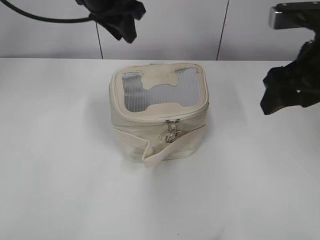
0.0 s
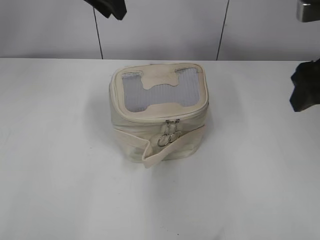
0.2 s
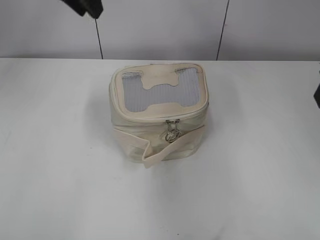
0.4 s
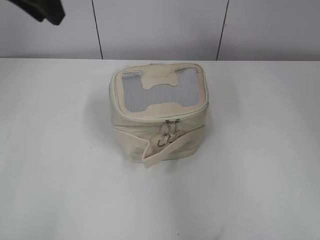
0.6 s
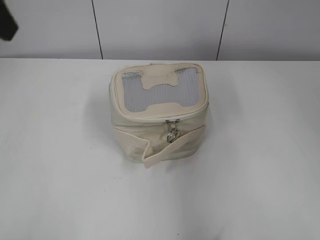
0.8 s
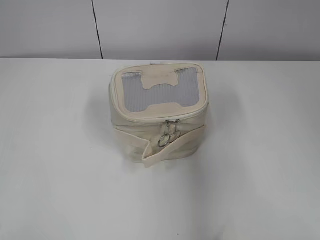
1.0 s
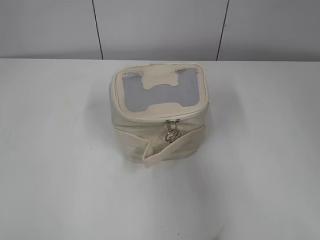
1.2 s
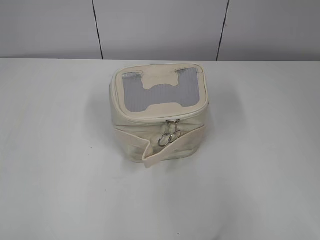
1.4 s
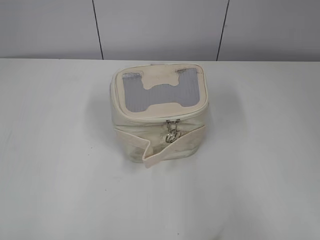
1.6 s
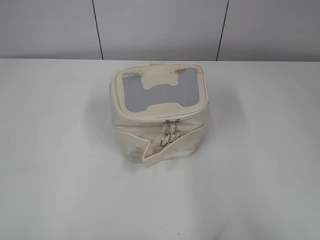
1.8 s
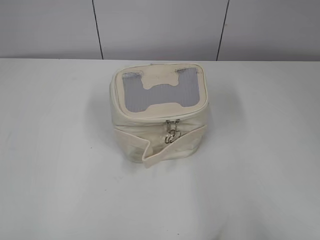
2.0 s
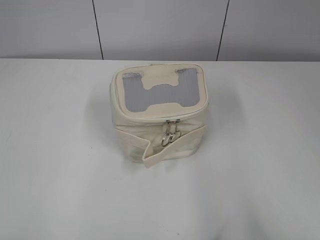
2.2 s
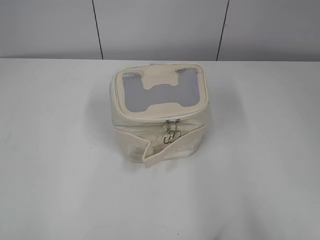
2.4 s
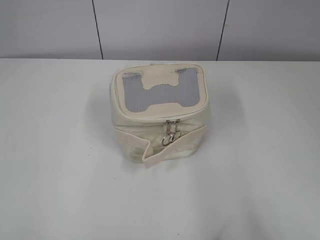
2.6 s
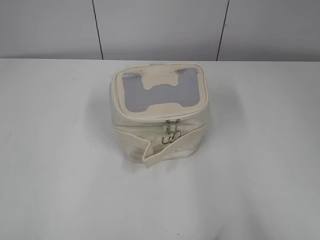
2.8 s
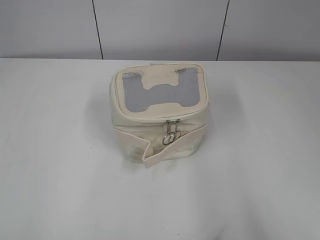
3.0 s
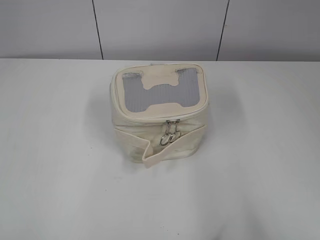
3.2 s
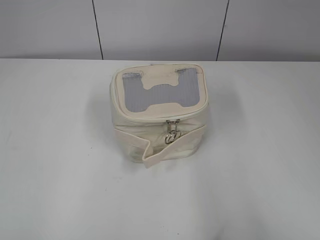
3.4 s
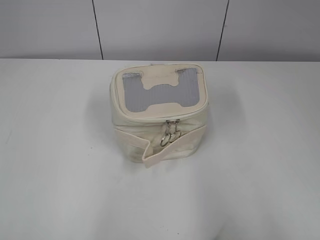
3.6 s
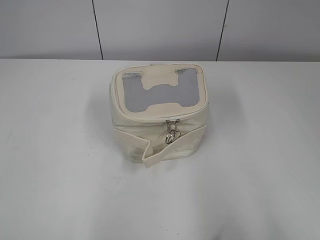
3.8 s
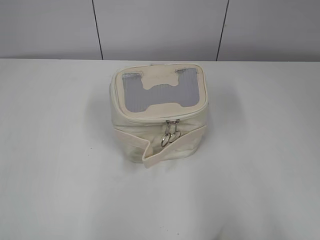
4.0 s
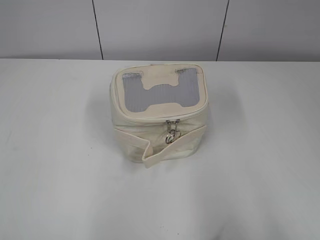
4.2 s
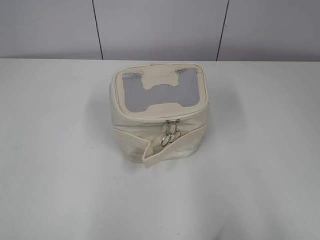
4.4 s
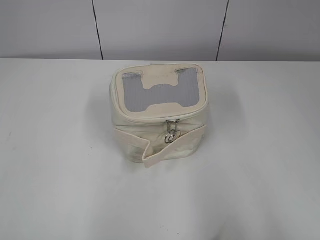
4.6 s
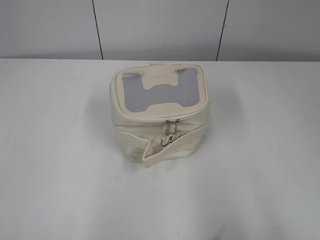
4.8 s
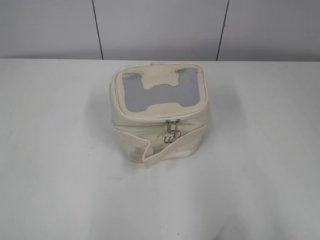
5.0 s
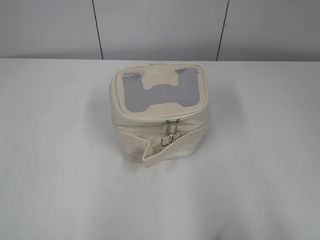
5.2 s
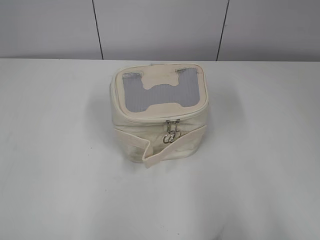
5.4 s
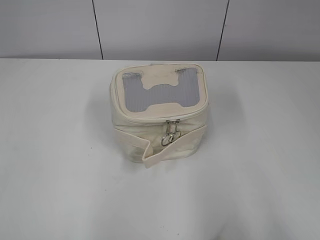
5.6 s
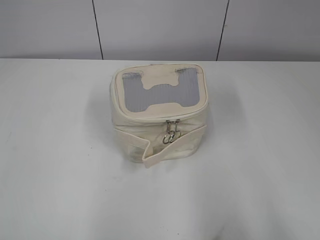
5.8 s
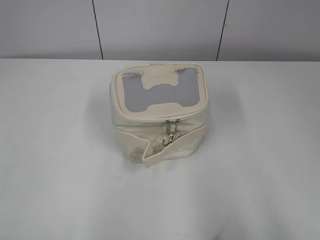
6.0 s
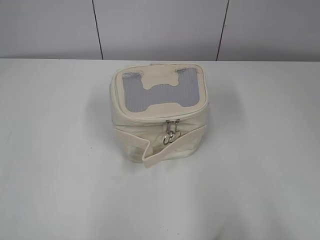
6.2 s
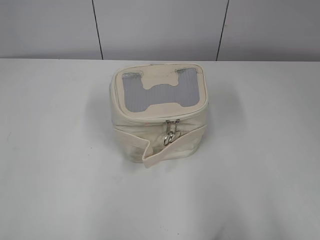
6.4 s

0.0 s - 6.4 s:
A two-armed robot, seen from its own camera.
0.0 s - 1.6 s: The right gripper heads backward, covering some 20 cm, while the left gripper shifts some 50 cm backward and to the left.
4.8 s - 6.4 s: The two grippers keep their place.
